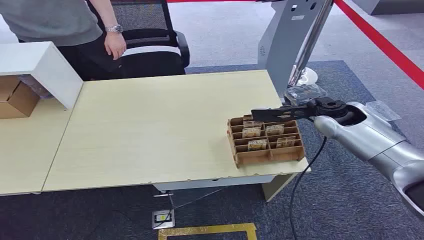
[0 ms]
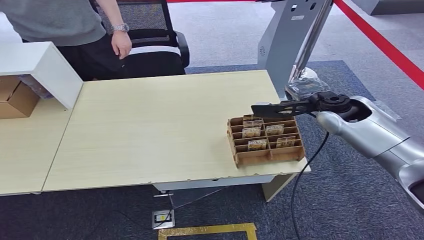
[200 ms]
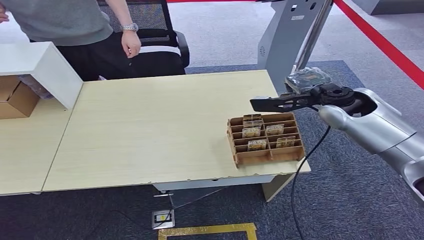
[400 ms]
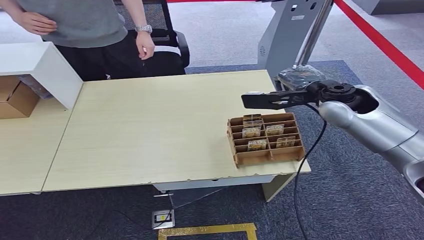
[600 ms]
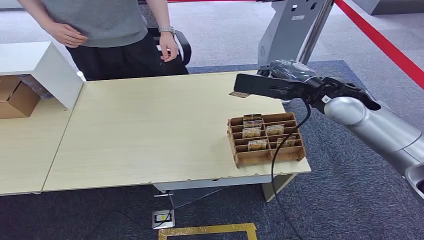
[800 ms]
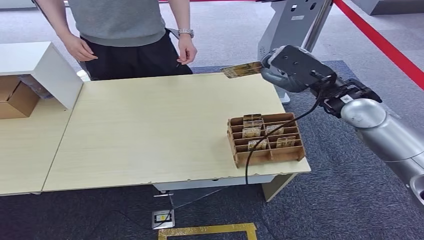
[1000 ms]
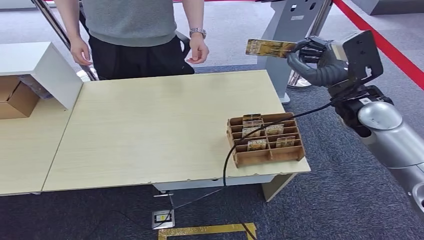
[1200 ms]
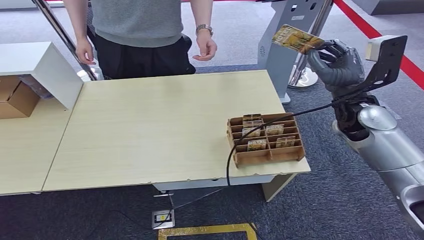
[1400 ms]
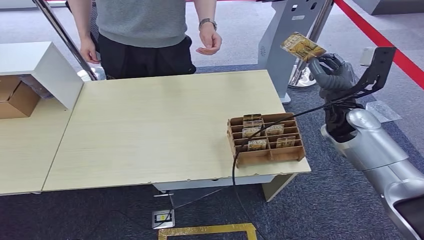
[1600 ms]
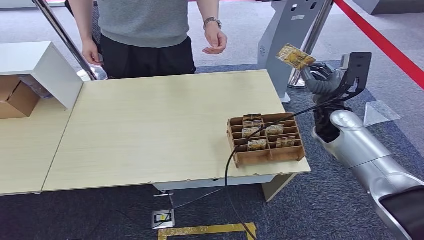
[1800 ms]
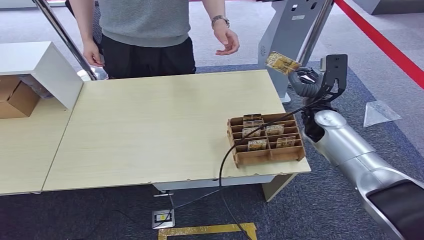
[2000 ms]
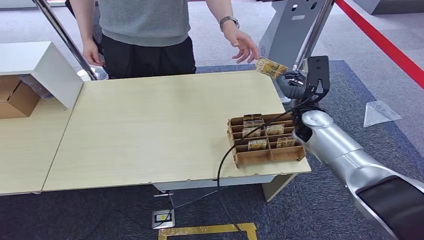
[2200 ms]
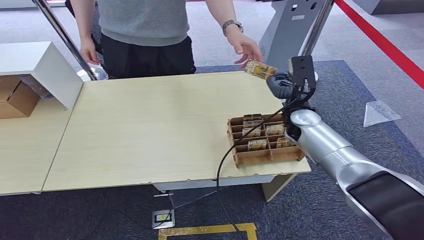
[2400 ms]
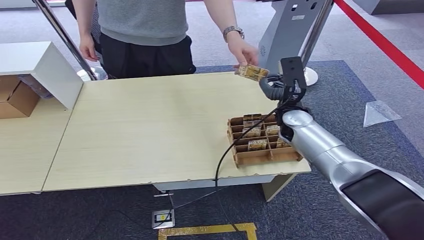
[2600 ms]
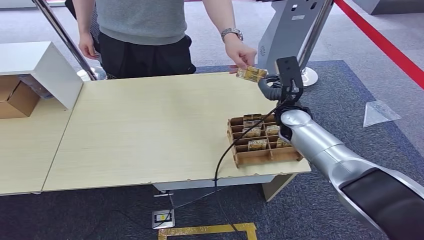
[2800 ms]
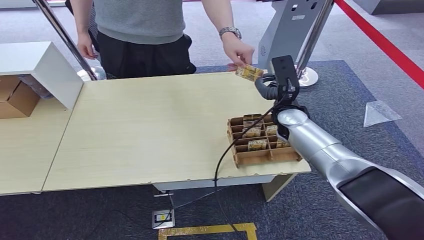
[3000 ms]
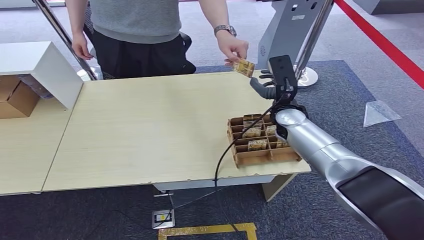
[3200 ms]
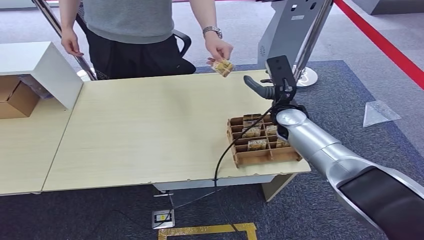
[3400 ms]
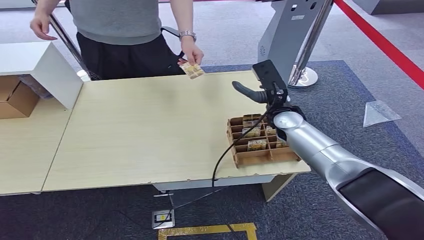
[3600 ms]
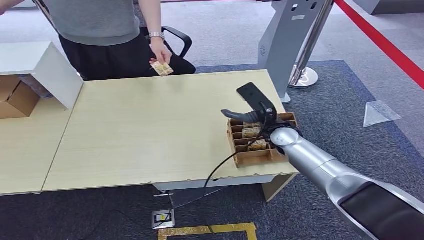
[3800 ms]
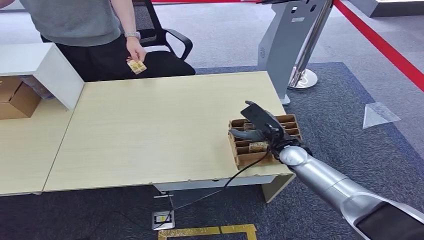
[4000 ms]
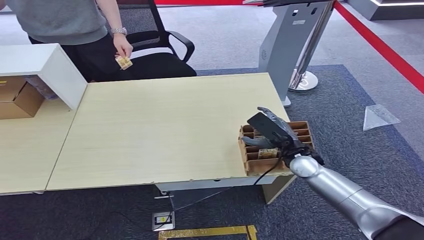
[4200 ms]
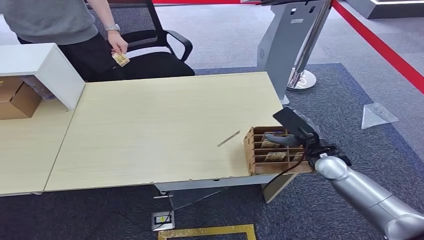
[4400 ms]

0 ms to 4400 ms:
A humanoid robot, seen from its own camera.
Task of the whole recording: Pick up the card and hand it over to the target person.
Step, 0 ms to 1600 ms: Pick up the key card from the card box.
Step, 2000 ms to 4400 ms: Hand the key card to the target.

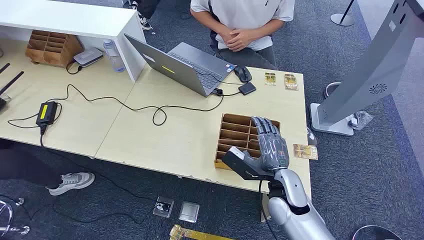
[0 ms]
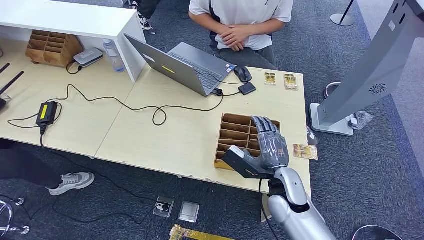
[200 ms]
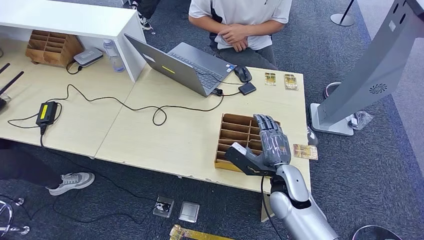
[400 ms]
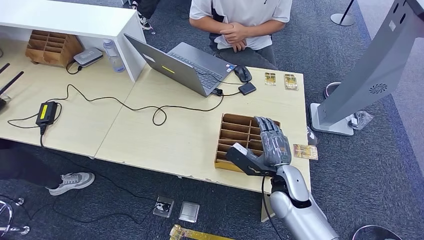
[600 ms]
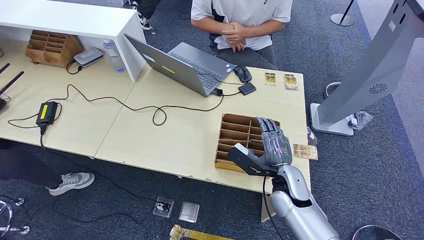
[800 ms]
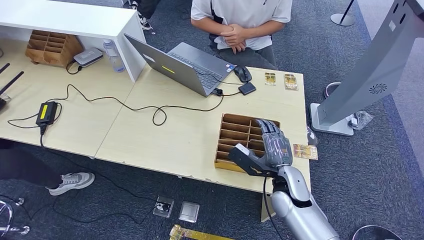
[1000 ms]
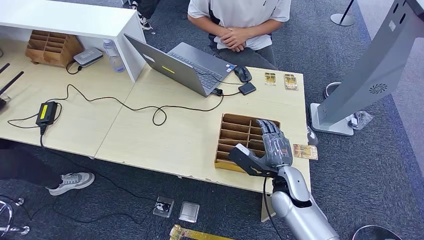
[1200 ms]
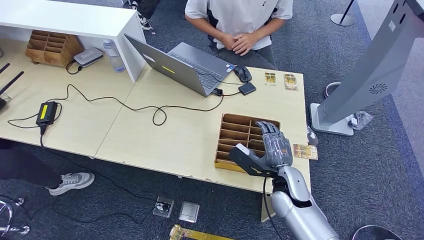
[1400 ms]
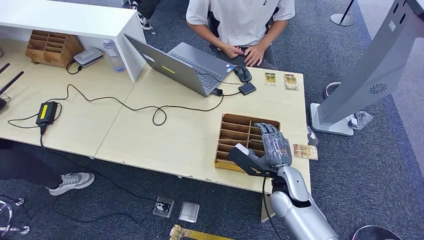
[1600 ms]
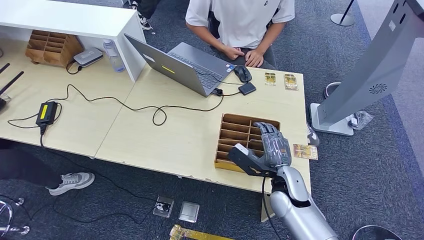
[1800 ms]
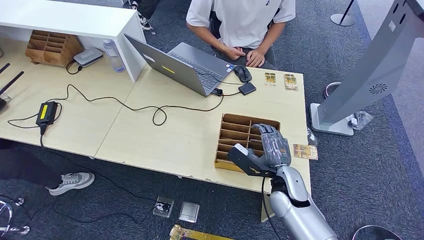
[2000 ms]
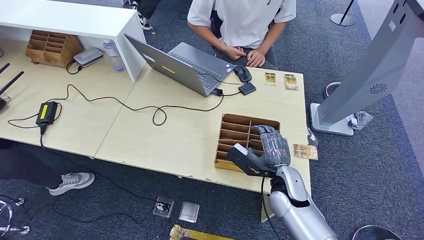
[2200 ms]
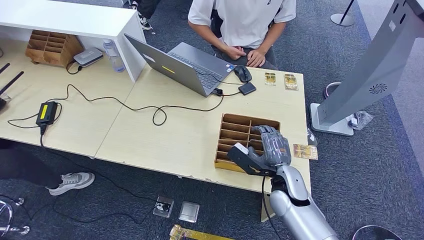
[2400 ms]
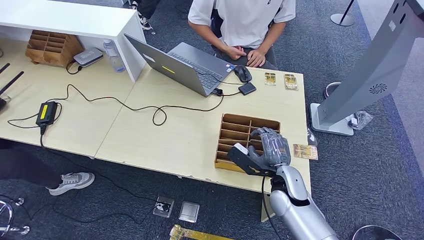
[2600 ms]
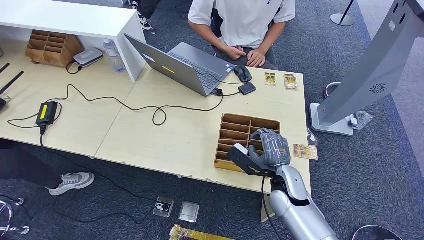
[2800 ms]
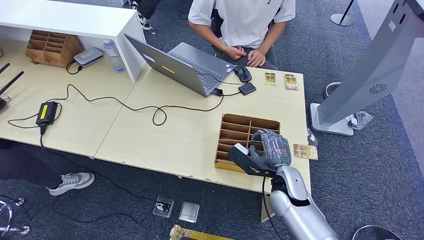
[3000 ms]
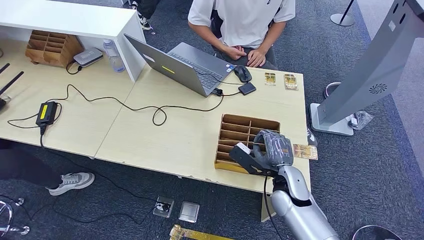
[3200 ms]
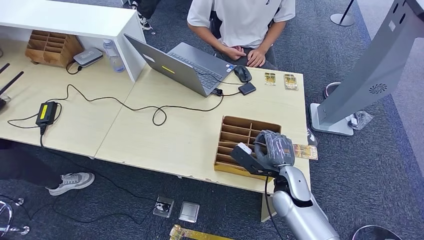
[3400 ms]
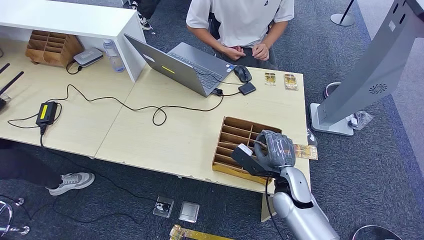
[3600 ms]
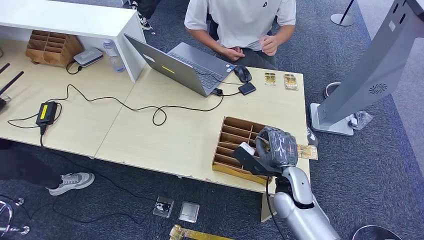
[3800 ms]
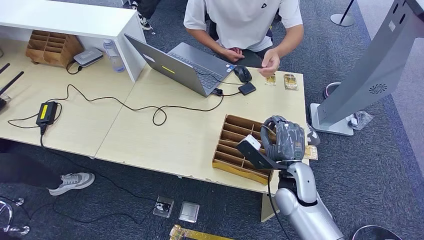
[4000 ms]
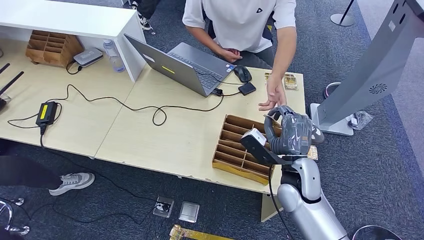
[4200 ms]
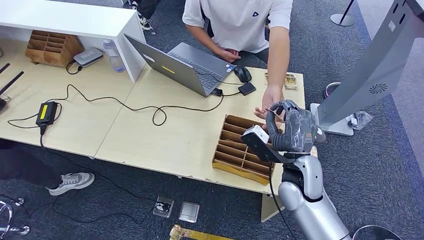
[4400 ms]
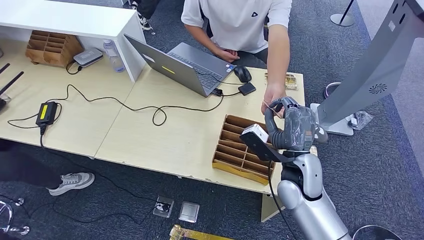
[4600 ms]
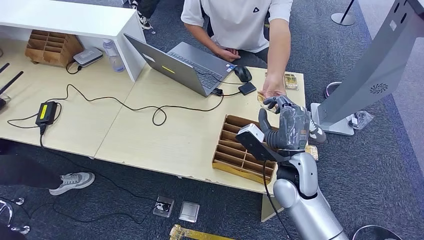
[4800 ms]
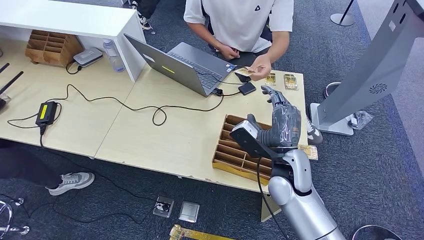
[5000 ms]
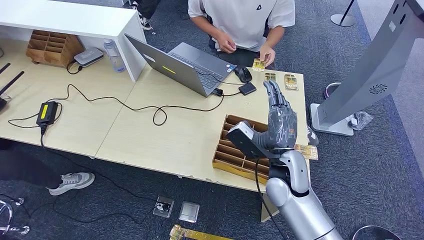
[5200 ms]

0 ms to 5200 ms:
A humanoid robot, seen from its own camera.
Task of the whole recording: Pick up the card and hand it over to the target person.
Step, 0 ms to 3800 ms: Pick up the key card from the card box.
Step, 4000 ms to 5200 ms: Hand the key card to the target.
1800 ms to 3400 ms: The hands move only a little.
3400 ms to 5200 ms: The right hand moves upward and to the left, approximately 10 cm.

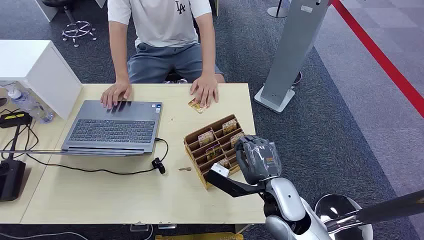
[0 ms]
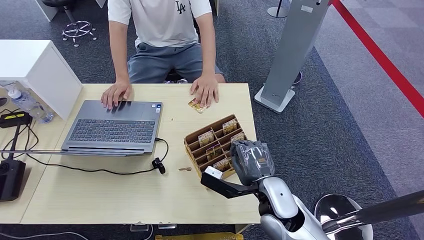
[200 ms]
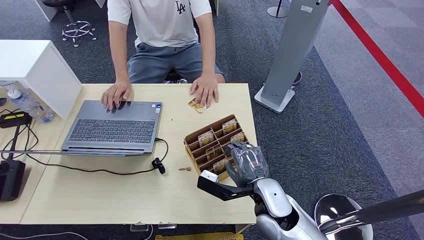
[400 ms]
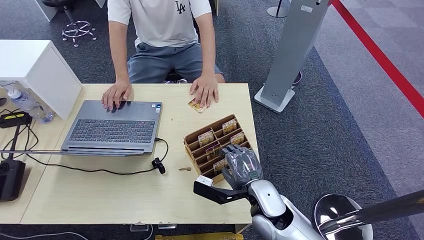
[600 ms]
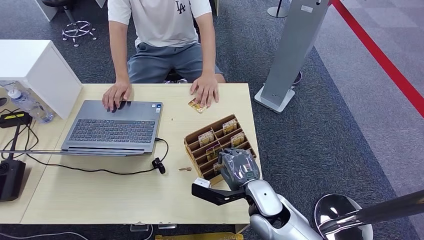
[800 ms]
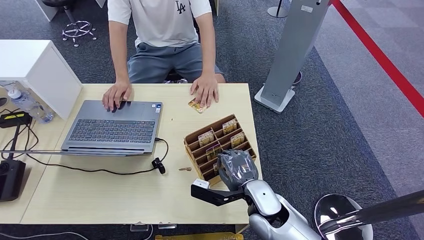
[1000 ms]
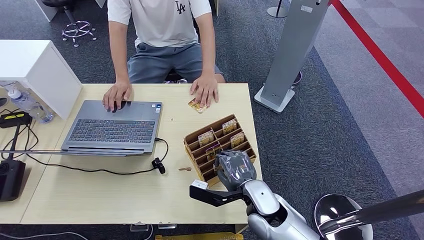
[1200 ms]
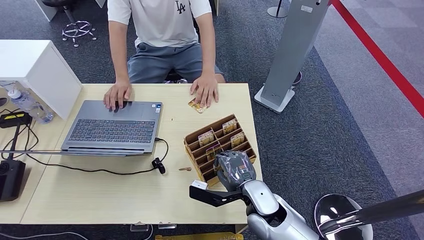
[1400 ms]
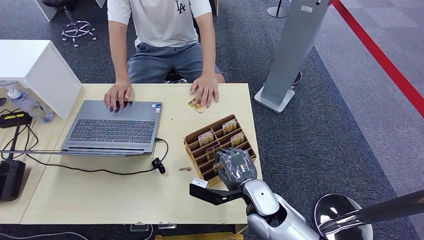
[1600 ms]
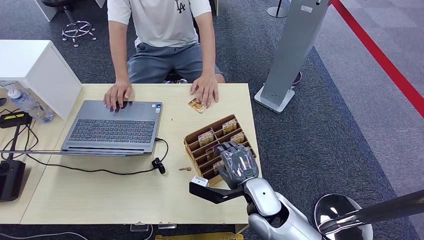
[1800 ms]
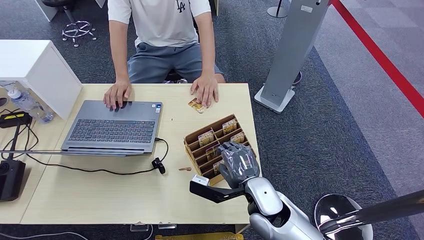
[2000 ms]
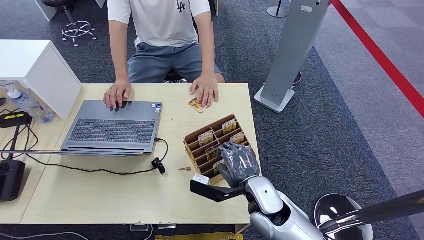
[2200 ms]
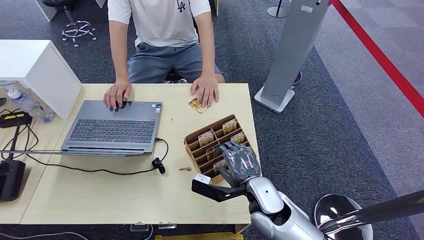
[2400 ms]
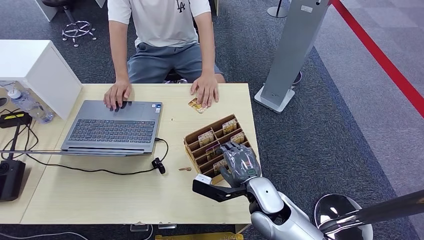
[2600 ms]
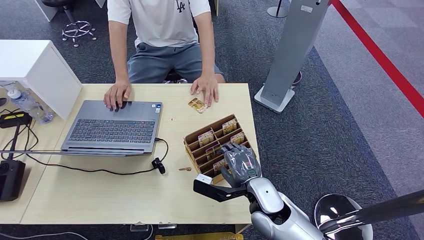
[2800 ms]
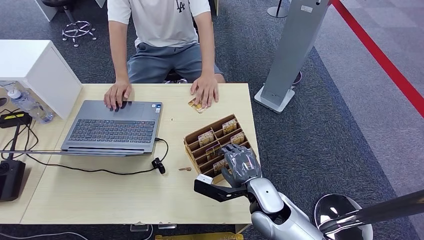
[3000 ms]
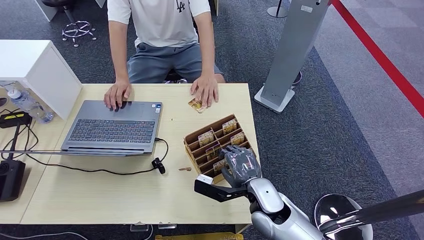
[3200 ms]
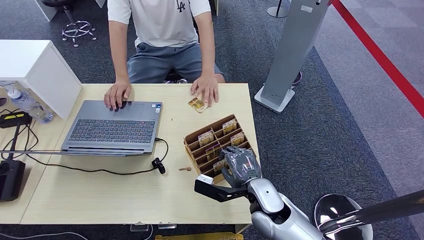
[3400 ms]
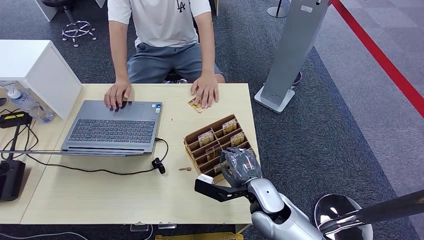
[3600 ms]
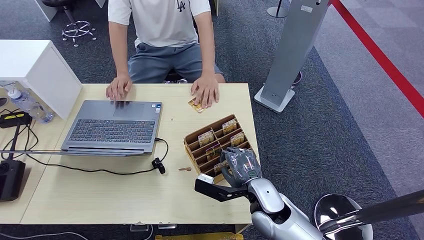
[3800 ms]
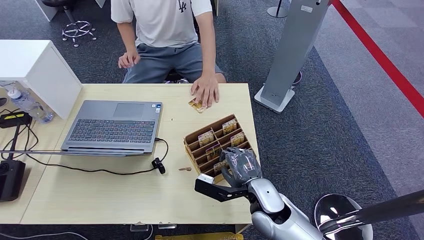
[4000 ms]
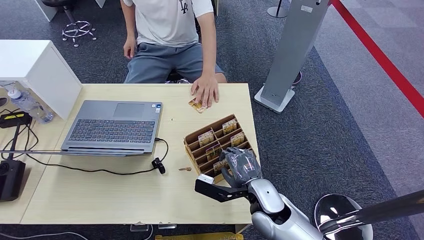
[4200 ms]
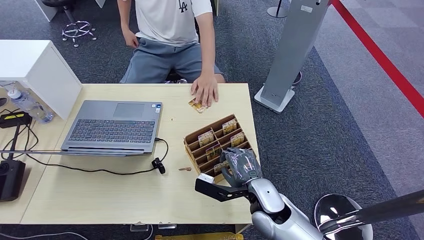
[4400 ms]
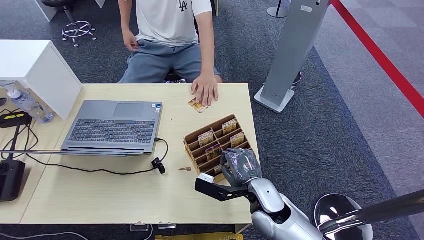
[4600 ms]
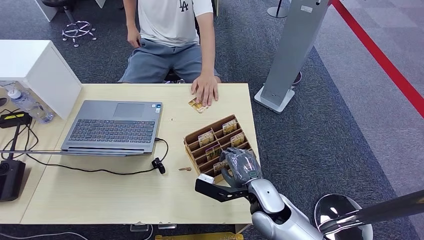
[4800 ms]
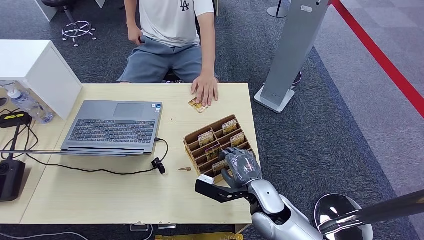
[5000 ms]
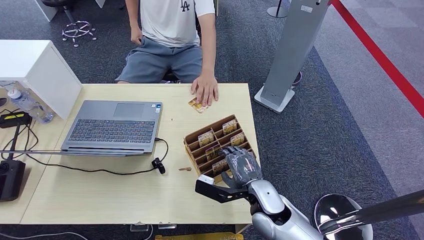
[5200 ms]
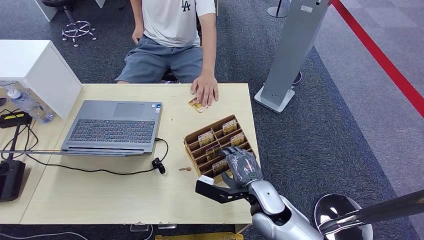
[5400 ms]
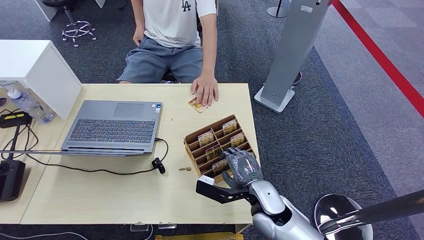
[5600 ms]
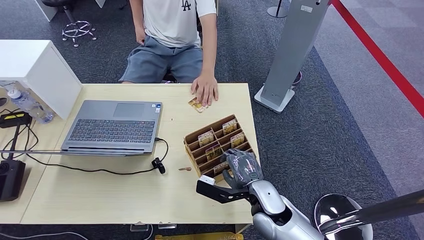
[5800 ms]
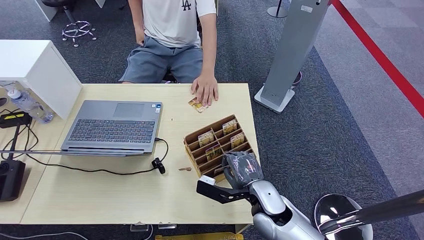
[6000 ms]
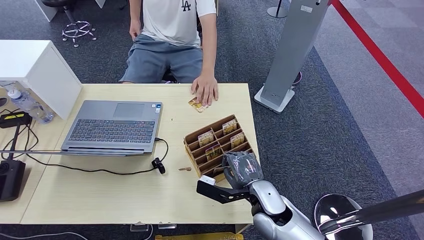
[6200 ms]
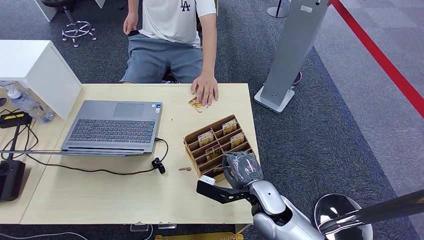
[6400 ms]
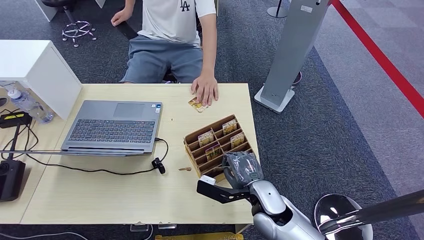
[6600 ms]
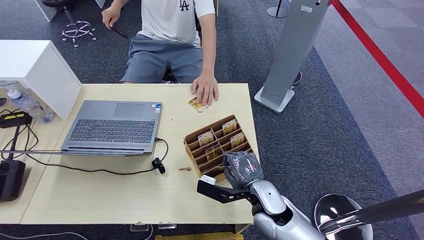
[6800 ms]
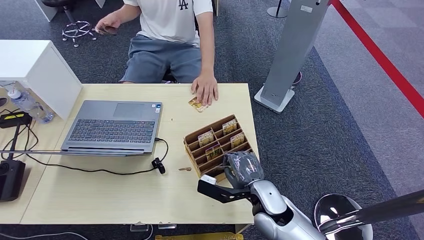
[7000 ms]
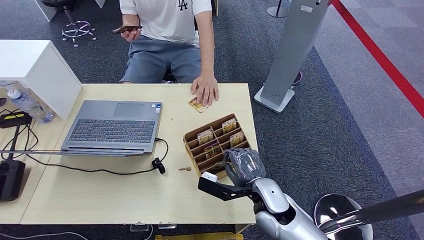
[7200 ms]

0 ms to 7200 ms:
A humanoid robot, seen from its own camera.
Task of the whole recording: Pick up the card and hand it over to the target person.
1400 ms to 2800 ms: The hands move only a little.
2800 ms to 5800 ms: Both hands stay put.
5800 ms to 7200 ms: The right hand heads upward, covering roughly 5 cm.
